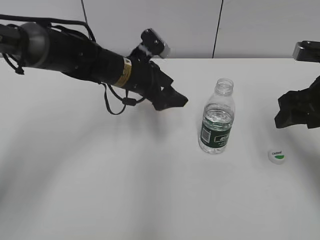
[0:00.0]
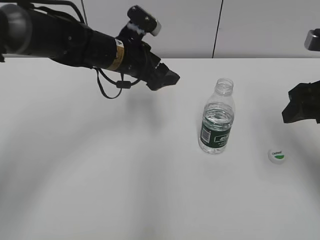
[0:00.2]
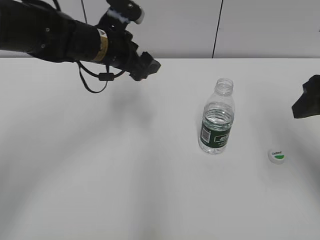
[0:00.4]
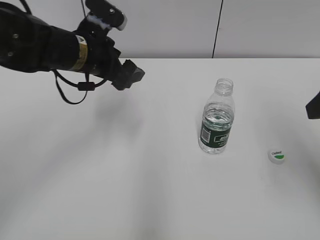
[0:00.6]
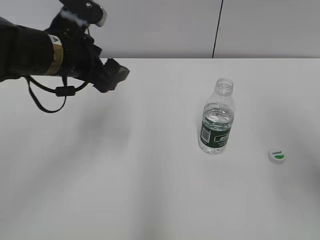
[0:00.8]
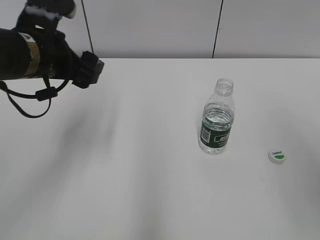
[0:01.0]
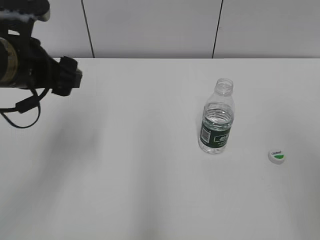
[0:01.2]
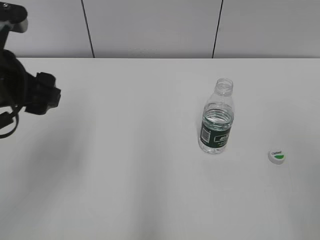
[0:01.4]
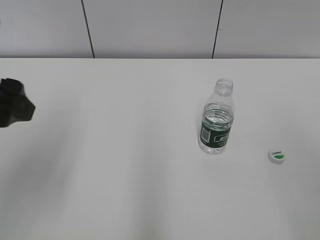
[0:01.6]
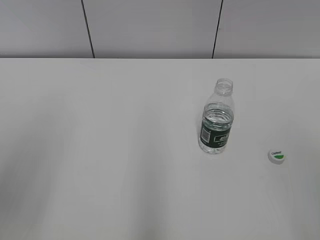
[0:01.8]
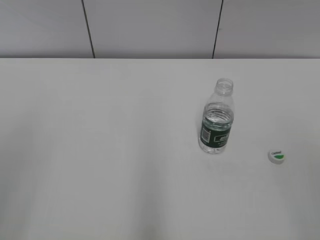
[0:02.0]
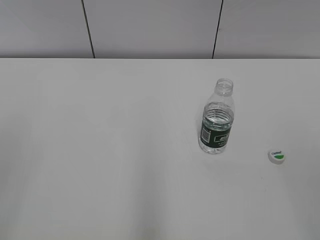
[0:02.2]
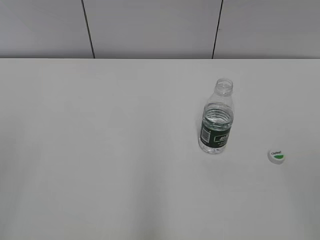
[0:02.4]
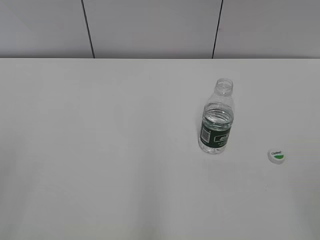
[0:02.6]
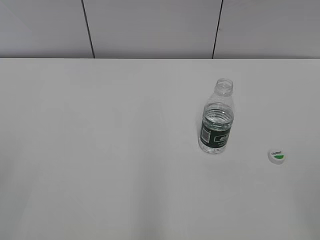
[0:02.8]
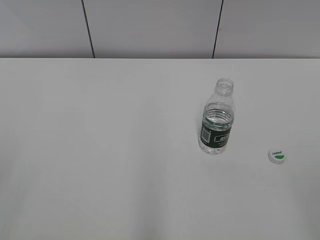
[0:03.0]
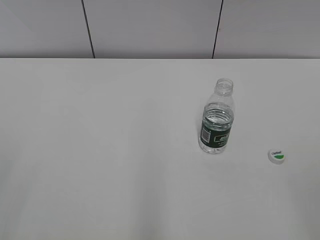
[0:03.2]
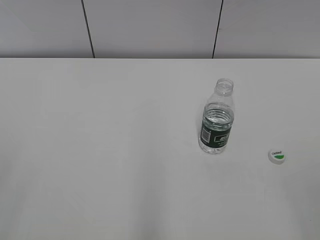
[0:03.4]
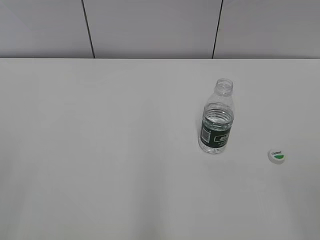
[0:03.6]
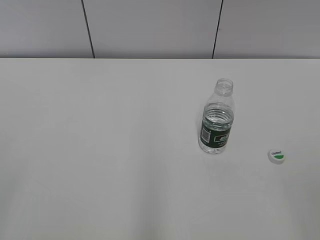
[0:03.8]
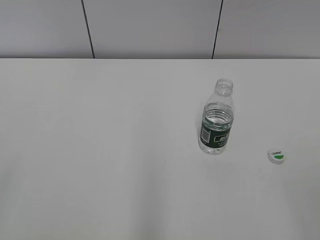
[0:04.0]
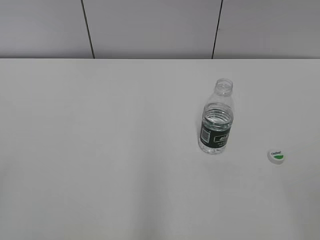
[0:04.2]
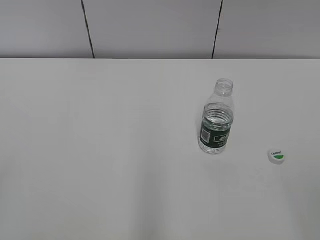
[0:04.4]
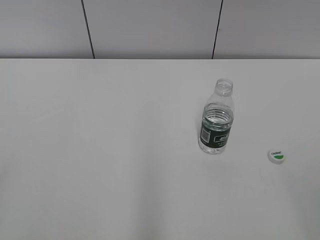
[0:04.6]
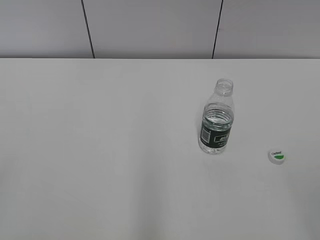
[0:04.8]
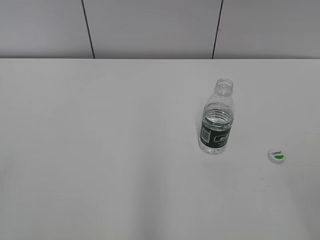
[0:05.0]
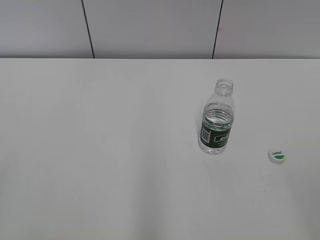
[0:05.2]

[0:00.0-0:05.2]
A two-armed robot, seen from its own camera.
0:00.0 to 0:01.8: The right gripper heads backward and upward, covering approximately 30 cm. Meanwhile the left gripper goes about 35 cm backward, to the left and upward, and closes.

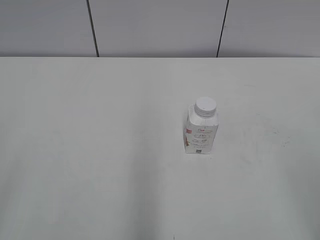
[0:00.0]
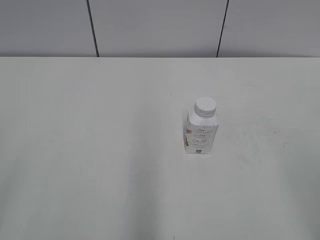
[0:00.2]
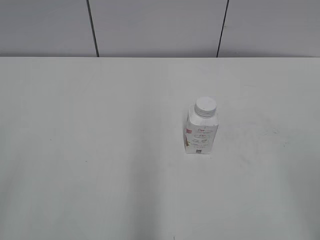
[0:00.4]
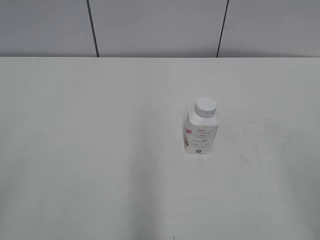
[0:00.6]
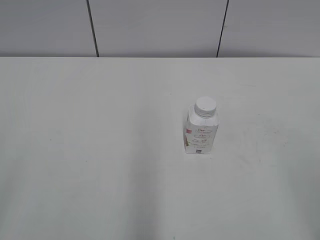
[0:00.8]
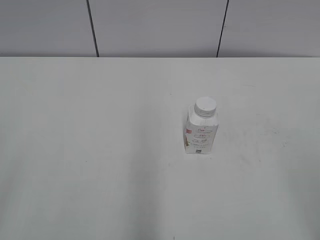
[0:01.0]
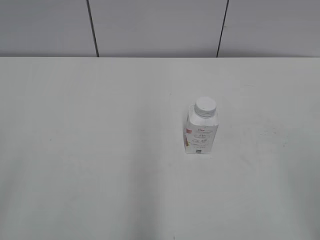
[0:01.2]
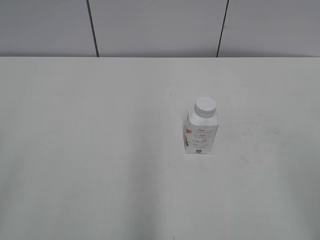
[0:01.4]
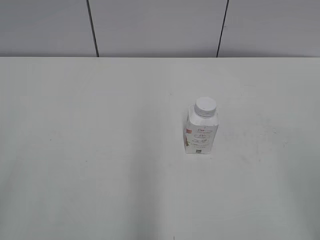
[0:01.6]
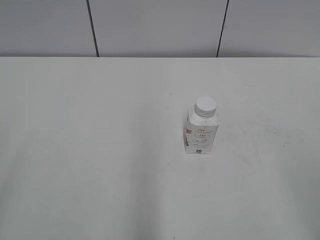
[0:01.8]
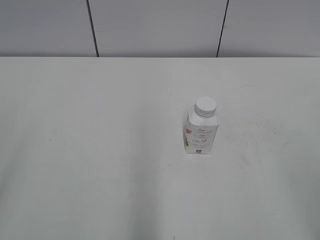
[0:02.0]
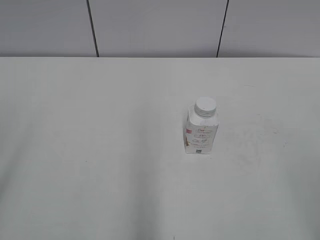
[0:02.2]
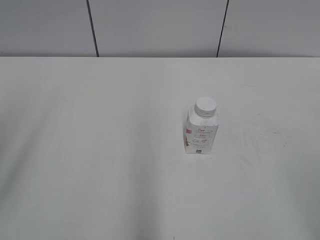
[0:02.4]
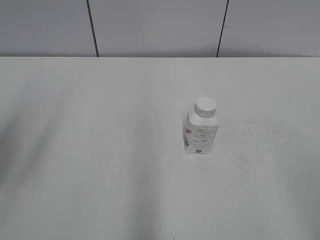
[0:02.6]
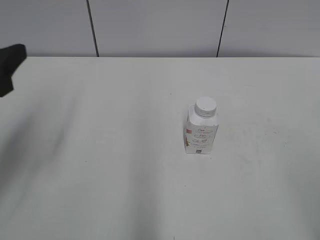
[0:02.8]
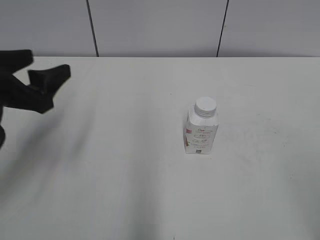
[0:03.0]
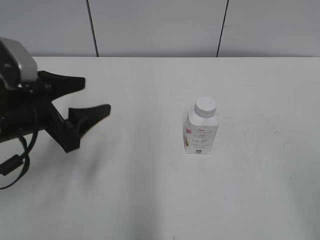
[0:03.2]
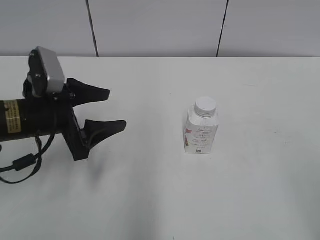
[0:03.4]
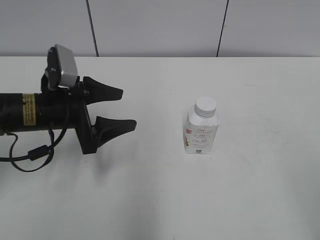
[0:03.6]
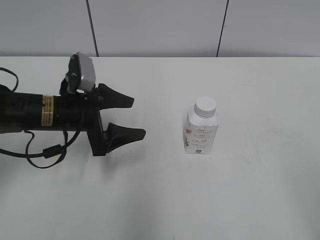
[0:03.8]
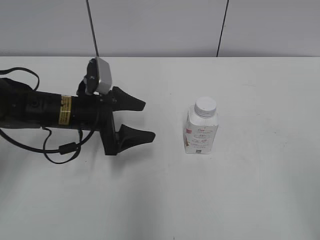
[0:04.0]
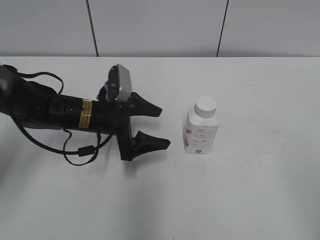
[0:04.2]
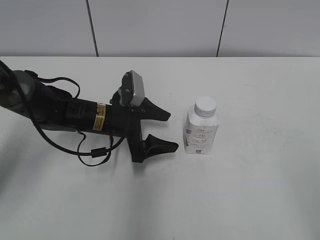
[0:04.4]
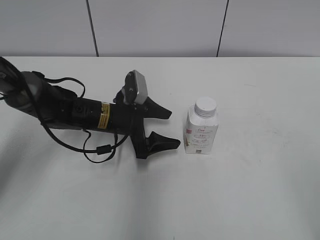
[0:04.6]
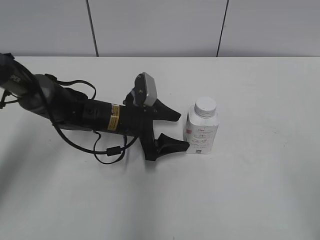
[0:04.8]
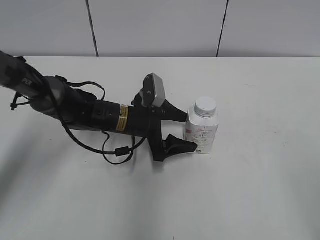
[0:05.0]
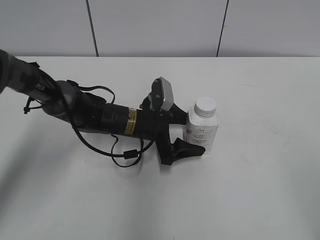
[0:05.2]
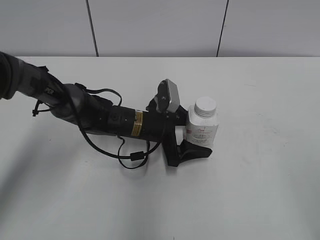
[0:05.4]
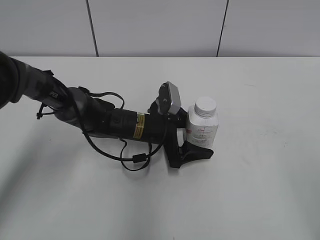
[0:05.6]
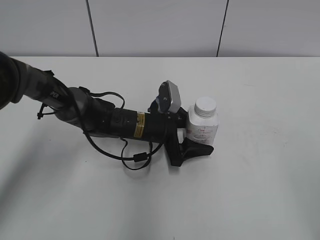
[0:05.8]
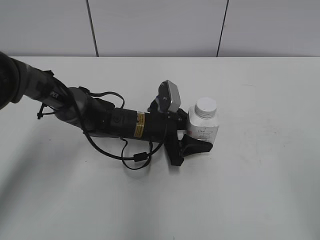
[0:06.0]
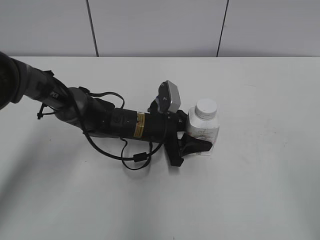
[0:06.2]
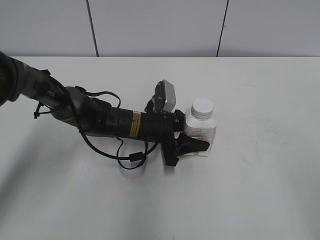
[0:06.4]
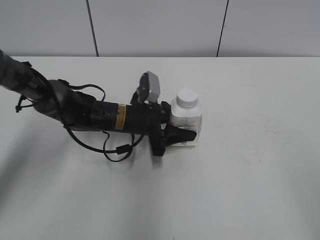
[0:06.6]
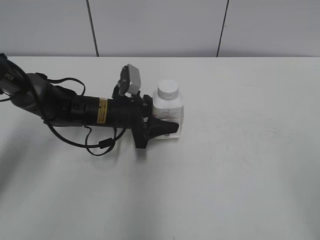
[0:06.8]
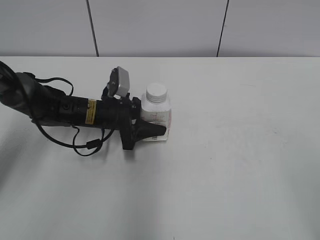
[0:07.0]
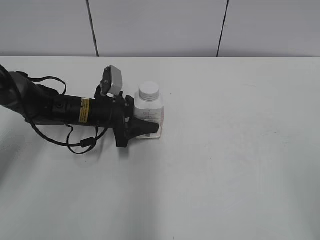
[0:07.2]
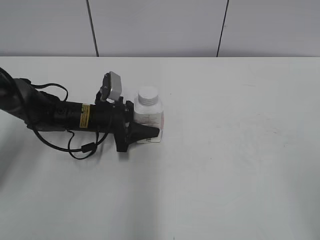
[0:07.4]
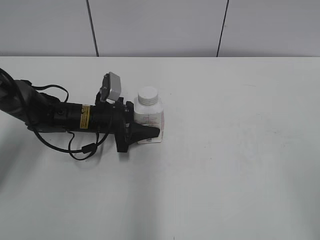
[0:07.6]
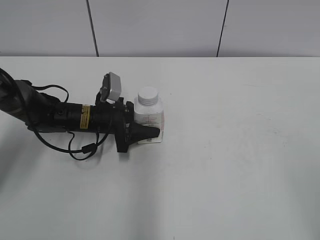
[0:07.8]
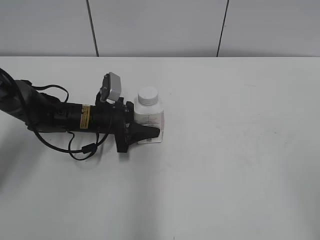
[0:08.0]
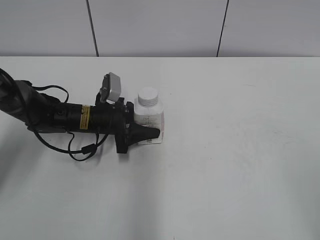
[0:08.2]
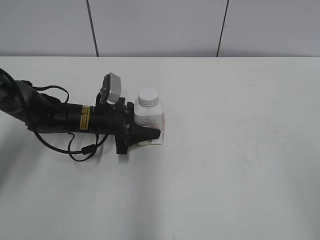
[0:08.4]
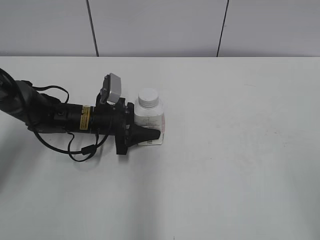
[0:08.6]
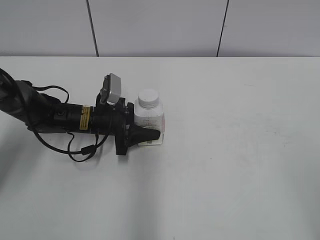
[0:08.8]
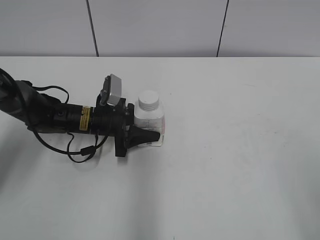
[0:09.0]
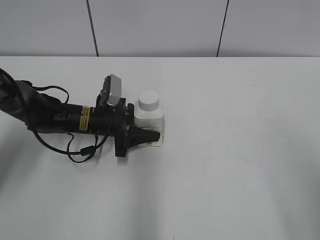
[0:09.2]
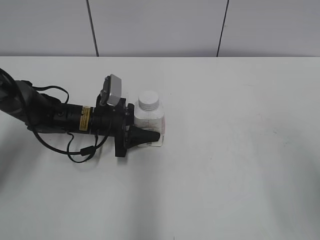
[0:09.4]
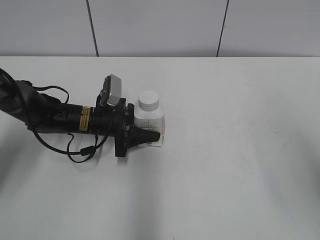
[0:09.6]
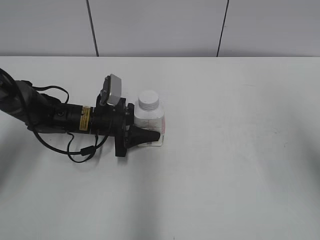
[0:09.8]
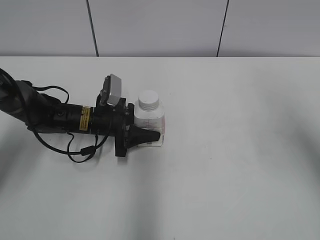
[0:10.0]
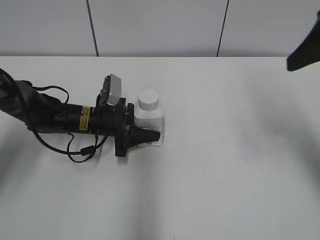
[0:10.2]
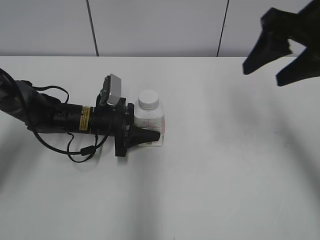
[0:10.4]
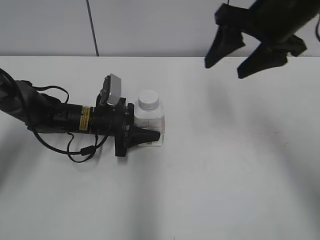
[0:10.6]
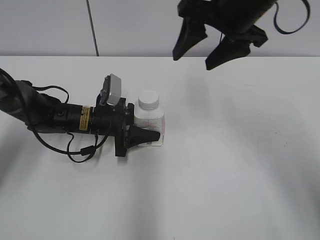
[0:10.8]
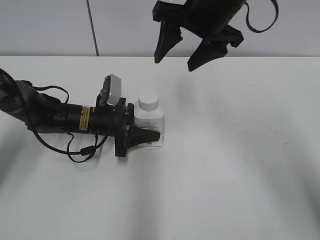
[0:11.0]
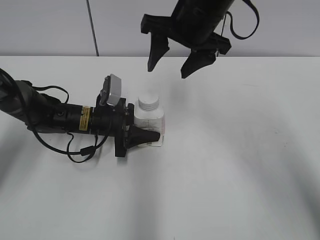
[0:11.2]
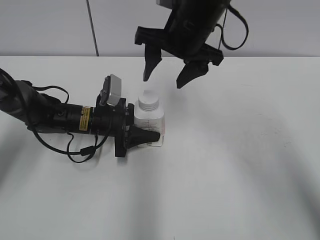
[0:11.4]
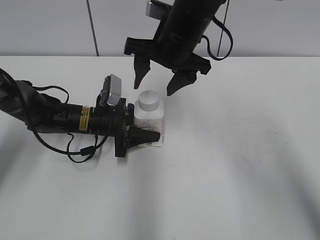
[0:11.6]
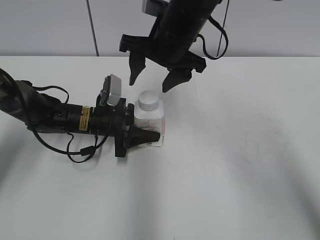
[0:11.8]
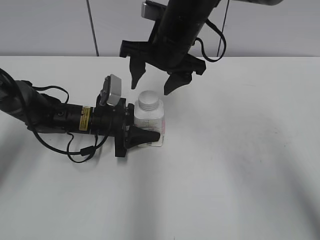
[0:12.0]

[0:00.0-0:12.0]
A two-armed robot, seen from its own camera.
Step, 0:00.0 to 0:06.0: Grab the Yili Changqing with the left hand.
Step, 0:06.4 to 0:08.8: Move the Yili Changqing from right to left.
0:01.6 to 0:03.0: The left gripper travels forward by some 25 cm.
0:03.0 to 0:04.4: The left gripper shifts some 25 cm downward, to the right and forward.
0:04.4 to 0:06.0: The left gripper is displaced to the right by roughly 10 cm, and closes its fingers.
0:06.0 to 0:07.6: The left gripper moves to the left, about 10 cm, and closes up.
0:07.6 to 0:09.0: The grippers make only small movements.
0:09.0 to 0:10.4: The right gripper heads forward, covering some 30 cm.
0:10.4 to 0:12.0: The right gripper heads to the left, covering about 20 cm.

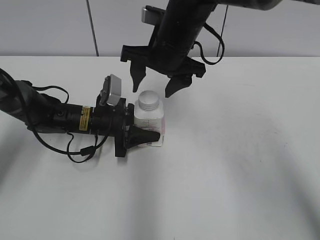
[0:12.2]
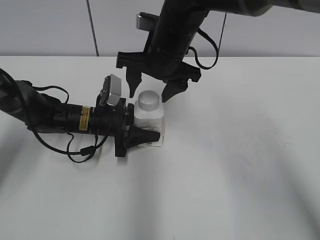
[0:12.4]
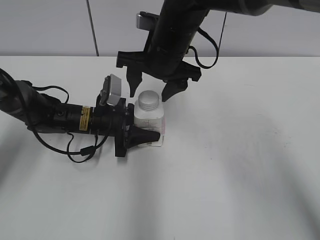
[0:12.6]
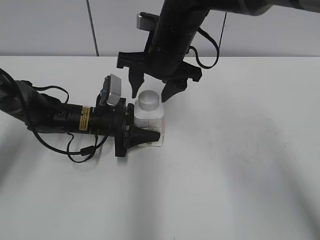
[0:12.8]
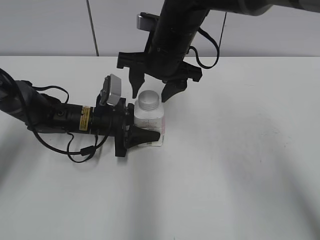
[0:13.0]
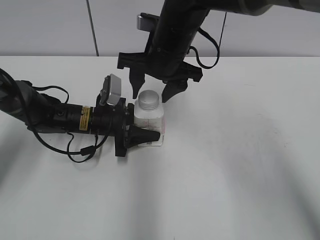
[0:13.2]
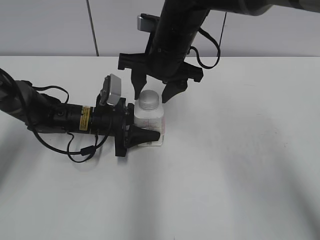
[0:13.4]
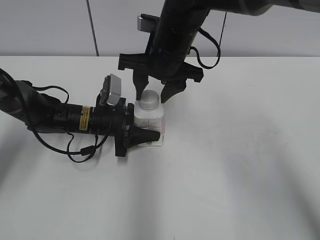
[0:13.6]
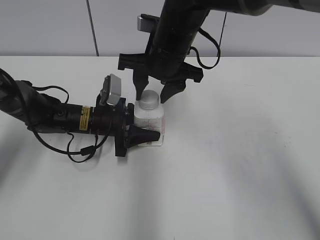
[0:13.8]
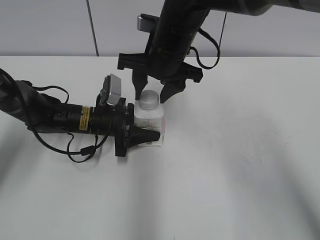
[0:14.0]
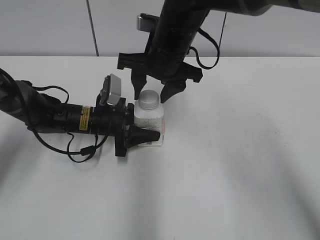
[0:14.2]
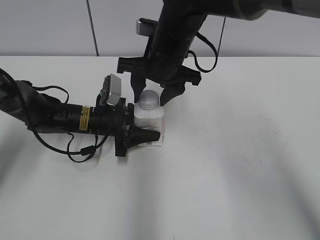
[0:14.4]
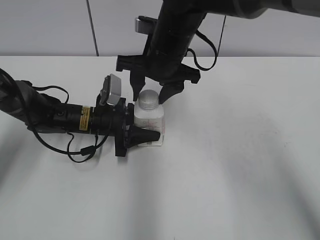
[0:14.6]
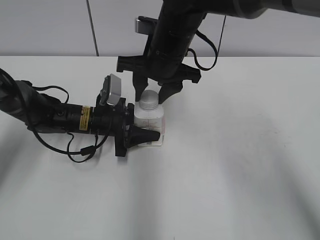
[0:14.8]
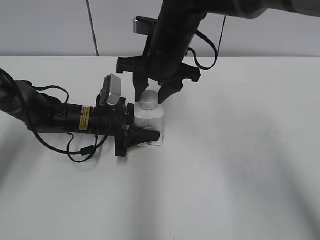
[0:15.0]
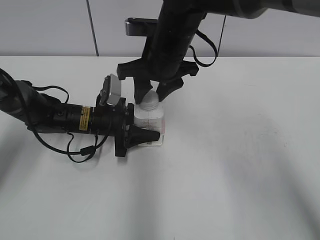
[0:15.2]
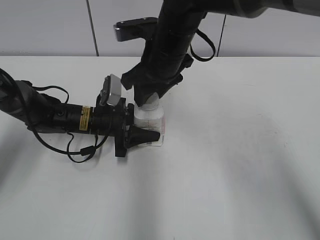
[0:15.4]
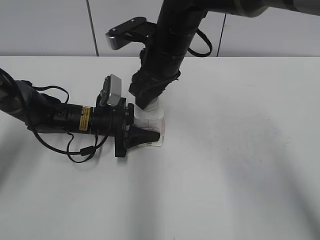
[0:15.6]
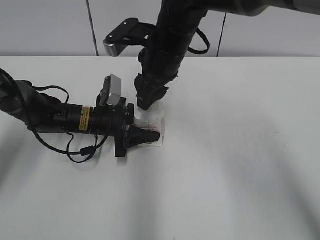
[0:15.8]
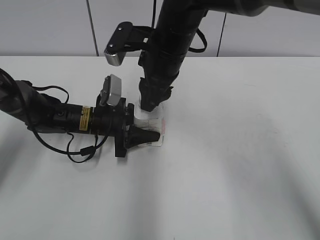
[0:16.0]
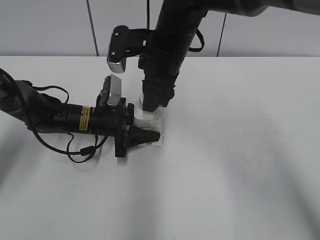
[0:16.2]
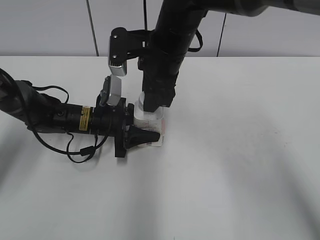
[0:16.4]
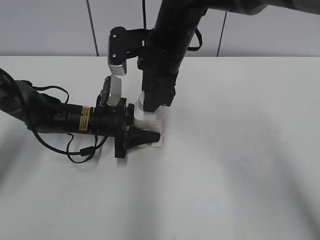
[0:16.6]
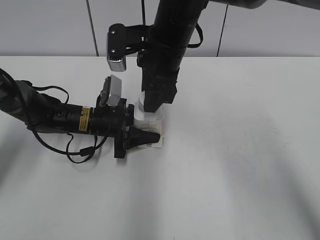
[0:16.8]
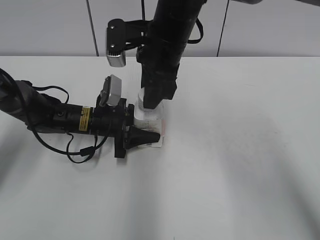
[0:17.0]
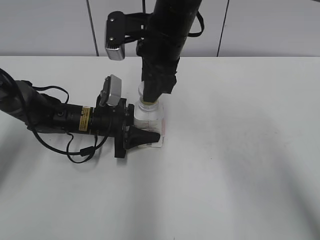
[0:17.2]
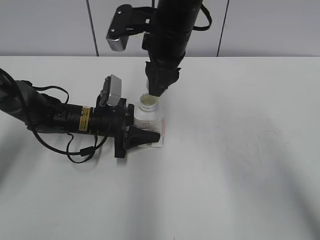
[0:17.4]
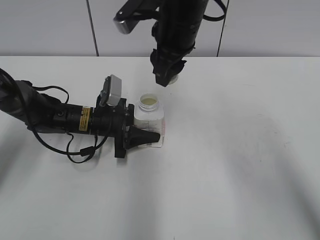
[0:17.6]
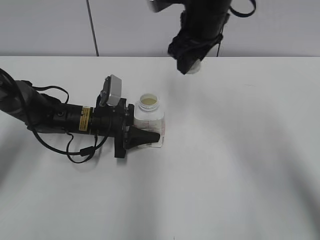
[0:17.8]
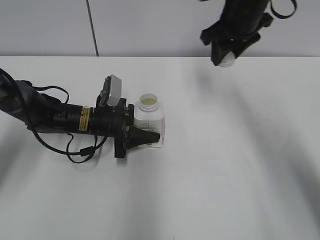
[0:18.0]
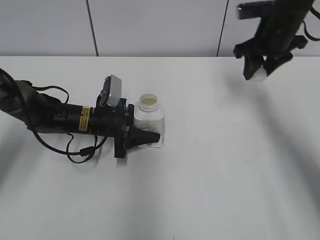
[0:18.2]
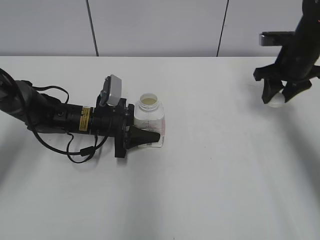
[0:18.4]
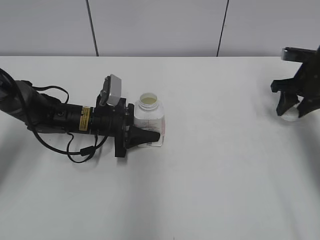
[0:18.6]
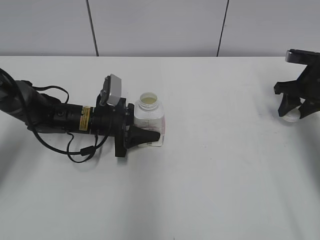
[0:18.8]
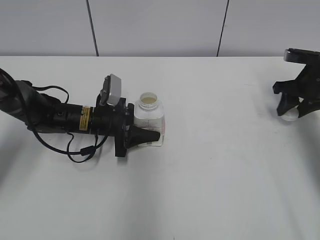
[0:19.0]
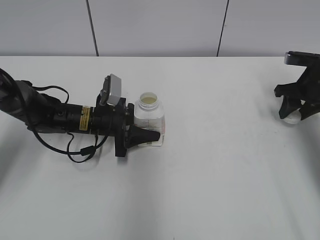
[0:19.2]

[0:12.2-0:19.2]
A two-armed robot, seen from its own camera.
0:12.2 to 0:13.6: The right gripper closes up.
0:13.6 to 0:15.0: Neither gripper changes place.
0:16.4 to 0:17.8: The right gripper changes place by approximately 5 cm.
0:17.8 to 0:19.2: The right gripper moves to the right and downward, about 30 cm.
